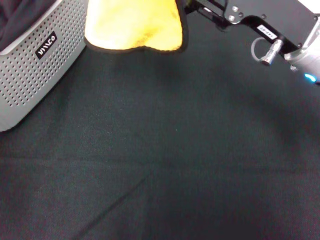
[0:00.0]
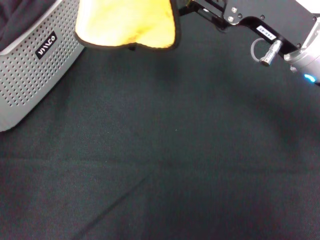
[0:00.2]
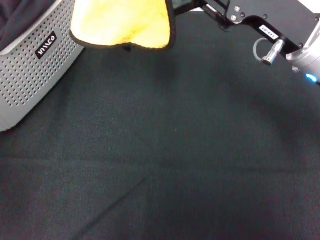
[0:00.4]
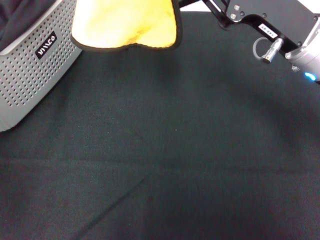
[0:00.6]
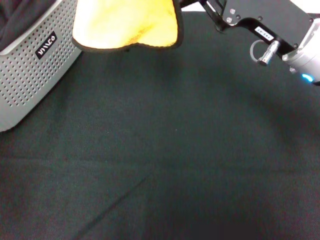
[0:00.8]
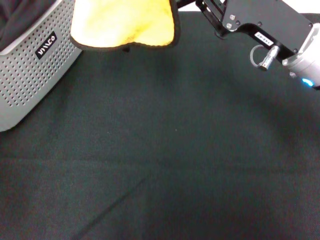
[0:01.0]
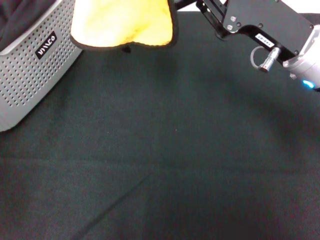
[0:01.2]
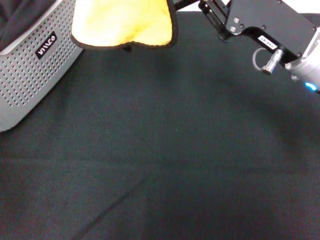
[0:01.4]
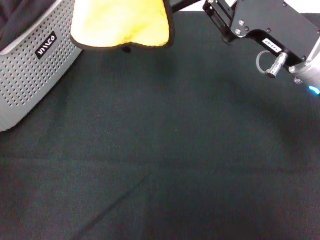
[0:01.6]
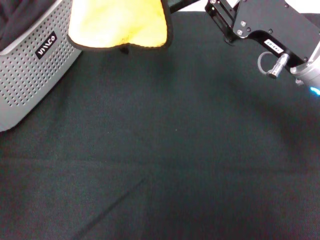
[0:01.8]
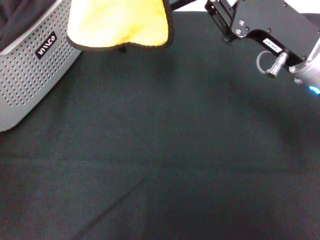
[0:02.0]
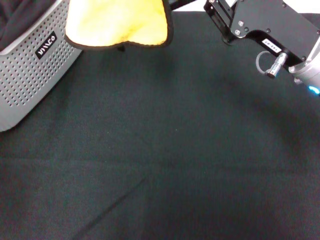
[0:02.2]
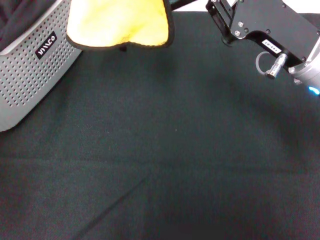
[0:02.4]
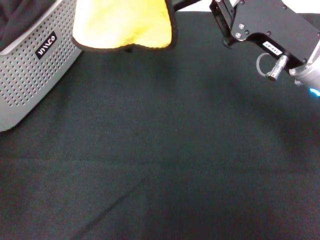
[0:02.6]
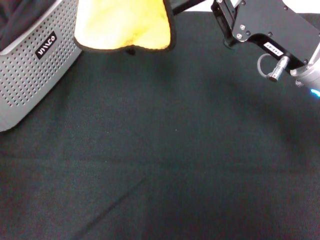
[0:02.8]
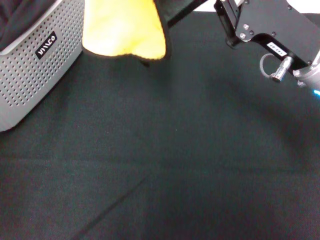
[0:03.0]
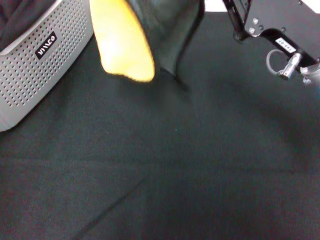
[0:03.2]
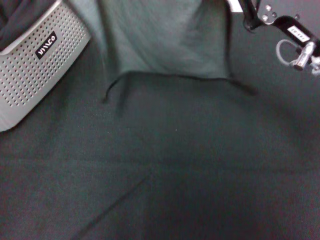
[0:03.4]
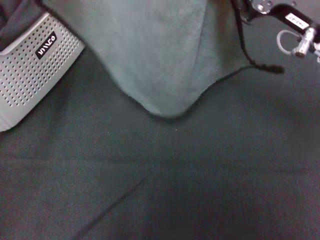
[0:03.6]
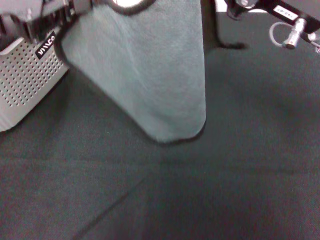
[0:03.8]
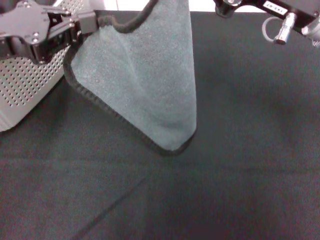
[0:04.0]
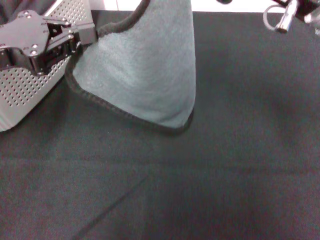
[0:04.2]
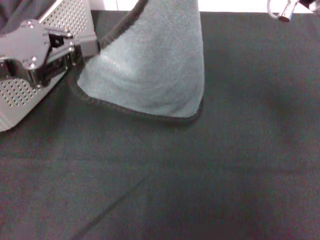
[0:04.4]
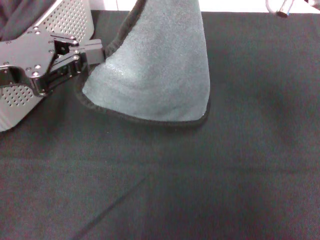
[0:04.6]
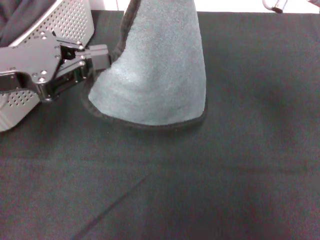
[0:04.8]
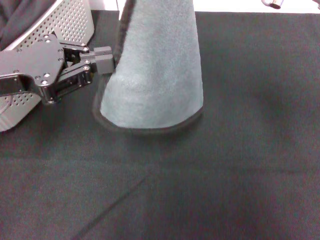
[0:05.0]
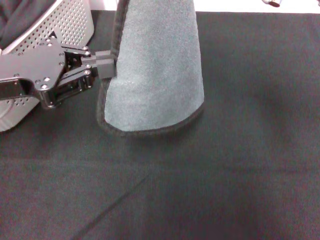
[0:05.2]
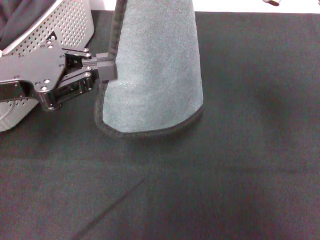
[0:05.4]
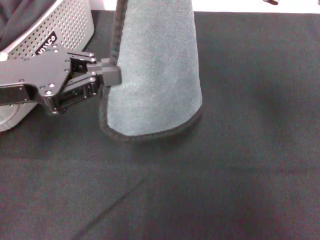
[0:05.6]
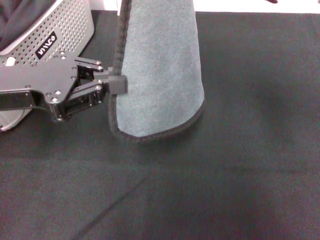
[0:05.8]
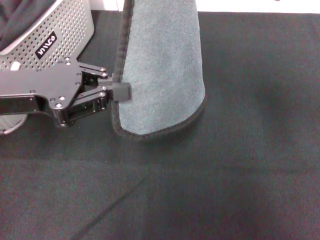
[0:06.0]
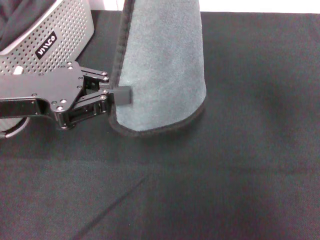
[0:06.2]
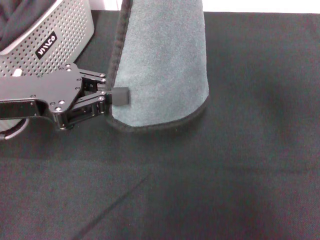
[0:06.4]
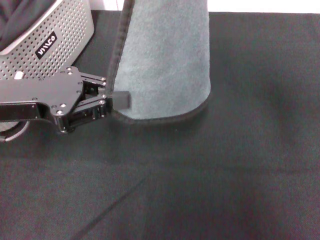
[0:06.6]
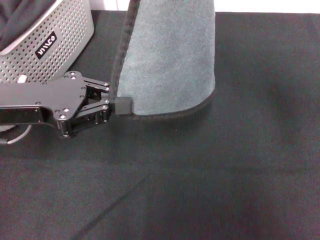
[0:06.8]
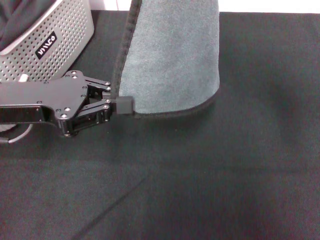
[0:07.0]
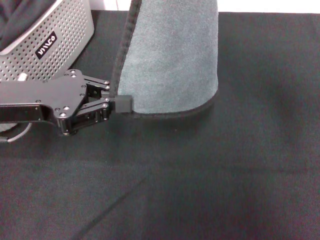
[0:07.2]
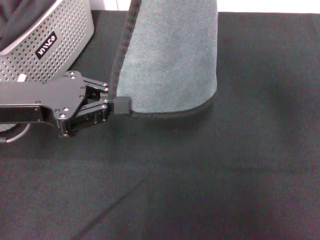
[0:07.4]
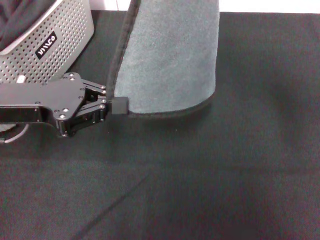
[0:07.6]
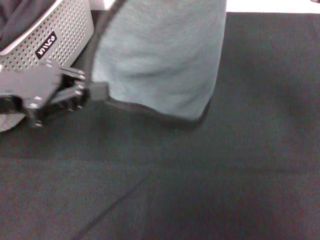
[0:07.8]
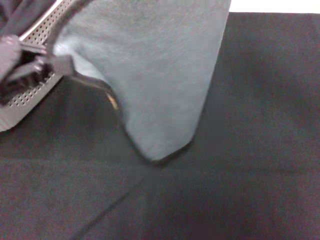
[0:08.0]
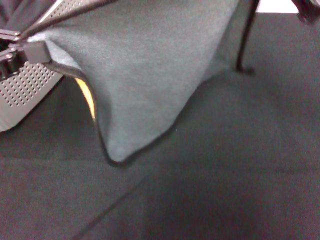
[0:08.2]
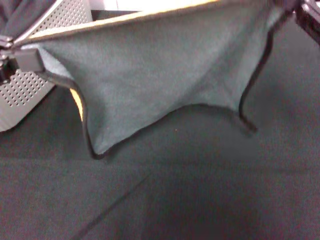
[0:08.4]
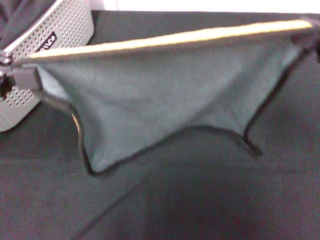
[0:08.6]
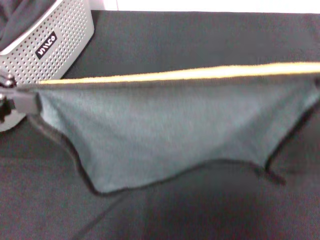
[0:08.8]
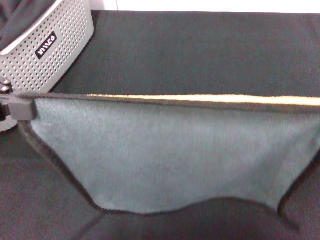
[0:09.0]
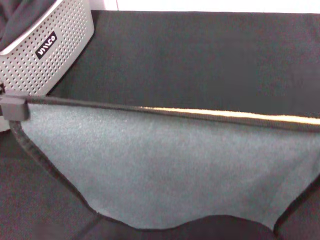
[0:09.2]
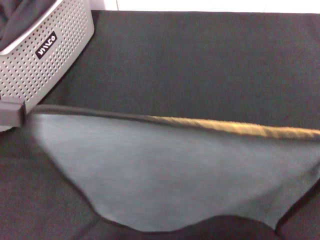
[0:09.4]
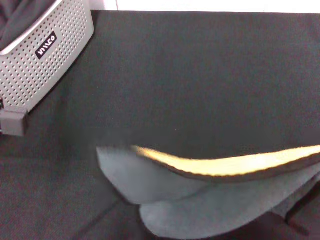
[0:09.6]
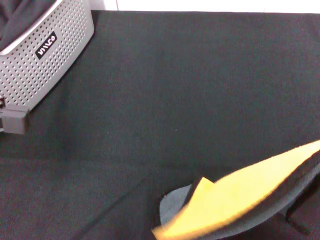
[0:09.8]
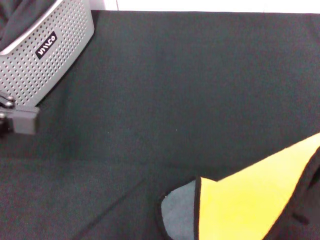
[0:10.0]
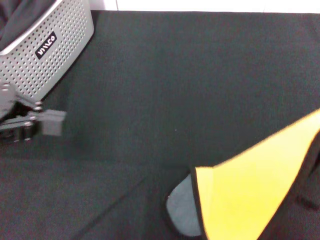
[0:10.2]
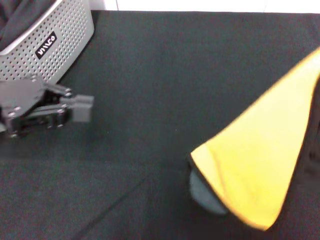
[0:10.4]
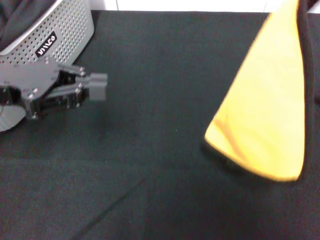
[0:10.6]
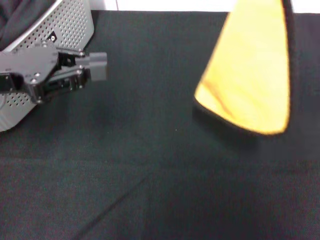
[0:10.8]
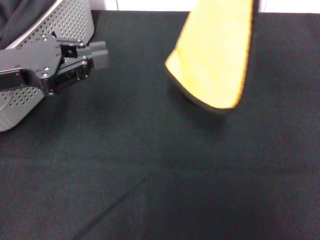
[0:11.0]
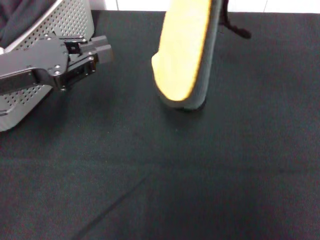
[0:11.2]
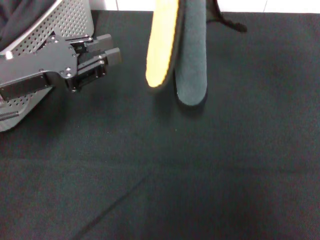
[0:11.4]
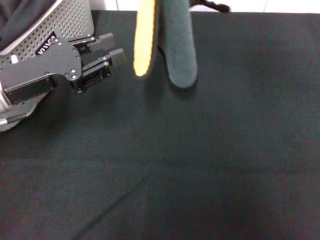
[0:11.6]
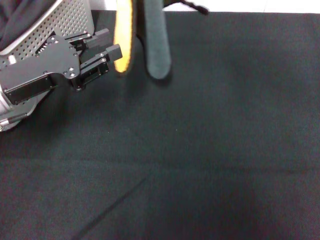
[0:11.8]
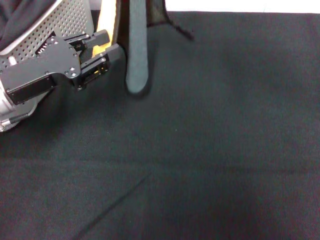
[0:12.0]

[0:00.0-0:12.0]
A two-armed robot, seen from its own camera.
Task of the whole recording: pick up the towel from the storage box and lay it flat on the black tablecloth.
0:00.0 to 0:01.6: The right gripper closes up.
0:01.6 to 0:03.0: Both grippers stay put.
0:03.0 to 0:04.4: The right gripper is displaced upward by some 10 cm. The left gripper heads downward, covering about 20 cm.
0:06.0 to 0:07.6: The grippers stay close to where they were, moving slightly.
0:07.6 to 0:09.0: The left gripper heads upward and to the left, covering about 10 cm, while the right gripper goes approximately 20 cm to the right, backward and downward.
0:09.0 to 0:10.4: The left gripper ends up some 5 cm from where it was.
0:10.4 to 0:12.0: The right gripper is displaced to the left and forward by some 25 cm. Meanwhile the left gripper heads downward, covering roughly 10 cm, and opens its fingers.

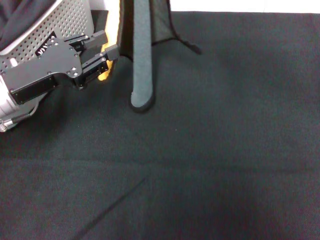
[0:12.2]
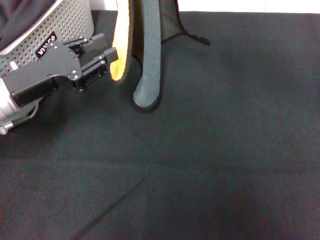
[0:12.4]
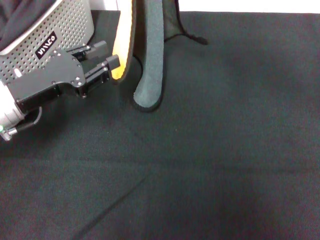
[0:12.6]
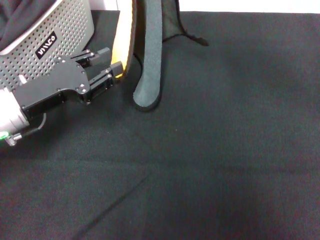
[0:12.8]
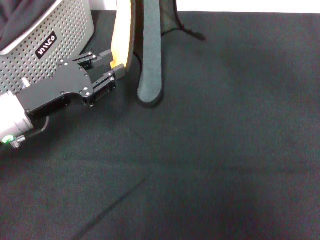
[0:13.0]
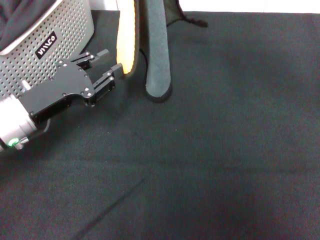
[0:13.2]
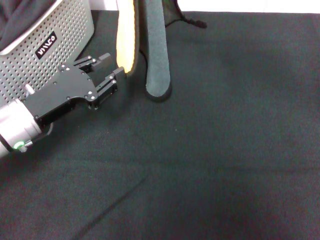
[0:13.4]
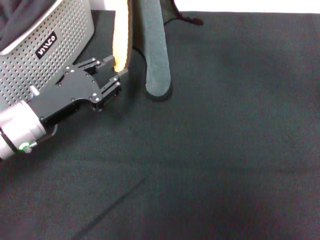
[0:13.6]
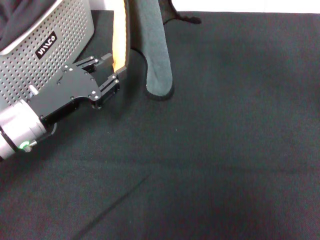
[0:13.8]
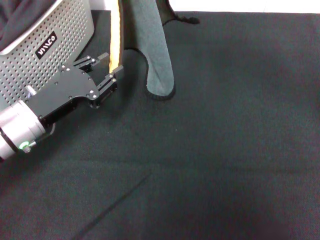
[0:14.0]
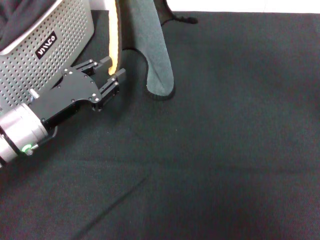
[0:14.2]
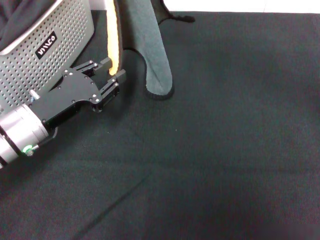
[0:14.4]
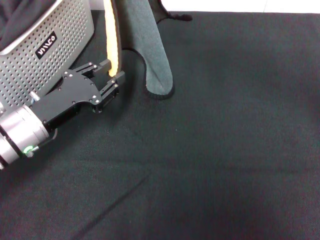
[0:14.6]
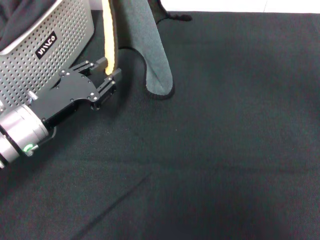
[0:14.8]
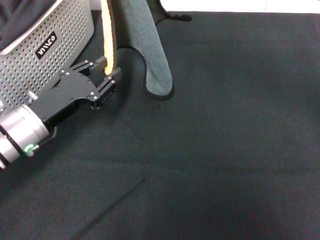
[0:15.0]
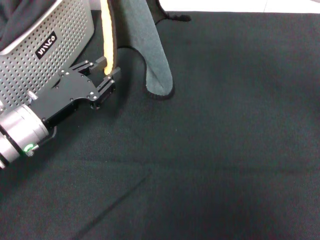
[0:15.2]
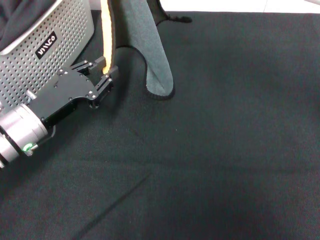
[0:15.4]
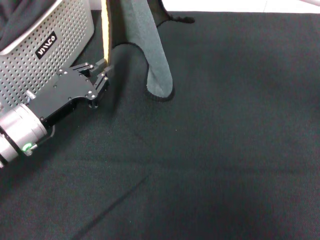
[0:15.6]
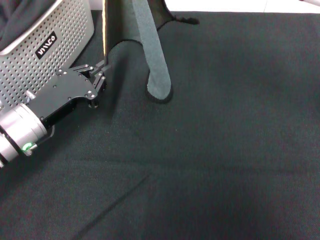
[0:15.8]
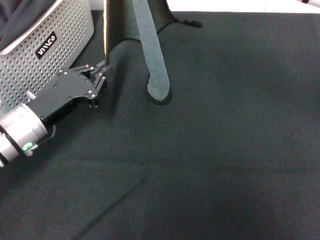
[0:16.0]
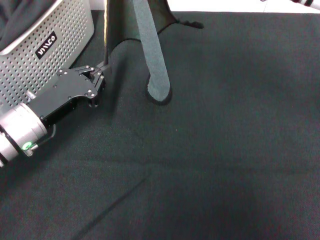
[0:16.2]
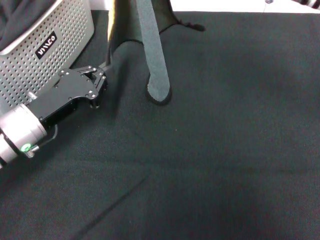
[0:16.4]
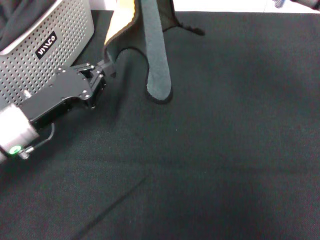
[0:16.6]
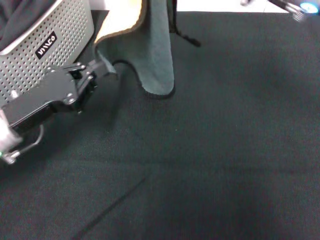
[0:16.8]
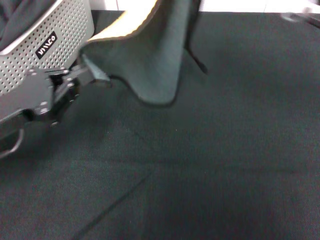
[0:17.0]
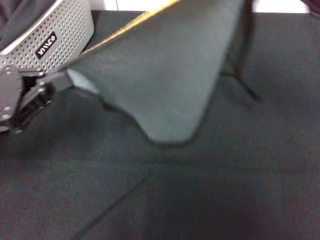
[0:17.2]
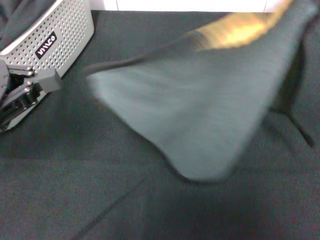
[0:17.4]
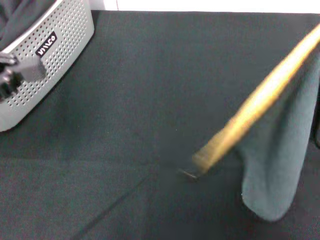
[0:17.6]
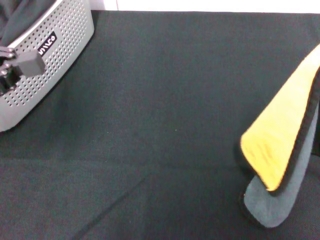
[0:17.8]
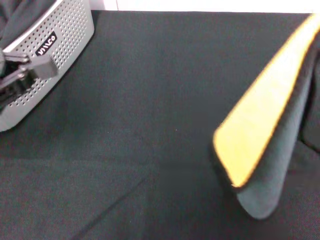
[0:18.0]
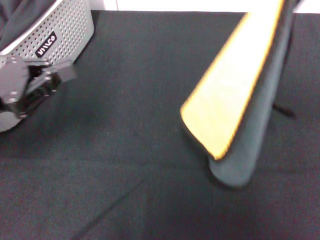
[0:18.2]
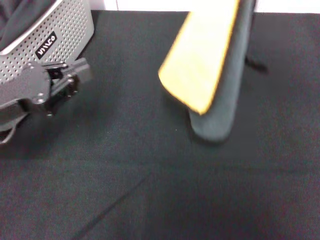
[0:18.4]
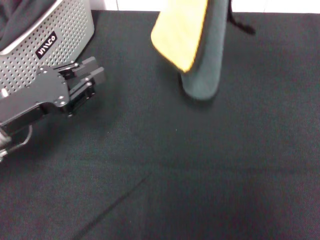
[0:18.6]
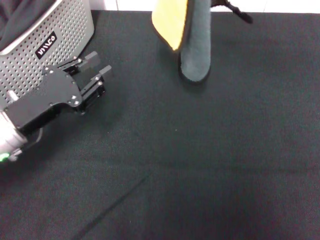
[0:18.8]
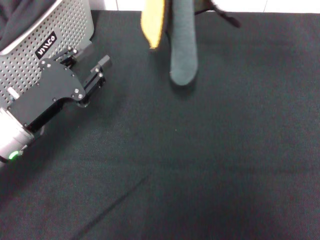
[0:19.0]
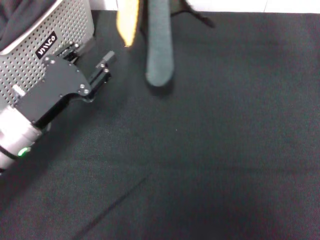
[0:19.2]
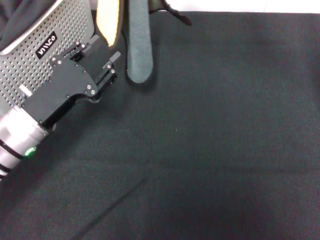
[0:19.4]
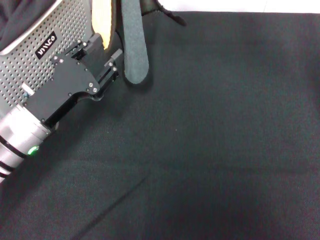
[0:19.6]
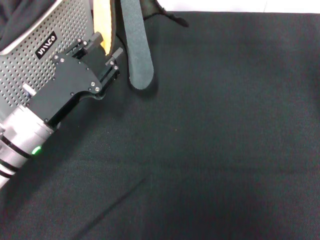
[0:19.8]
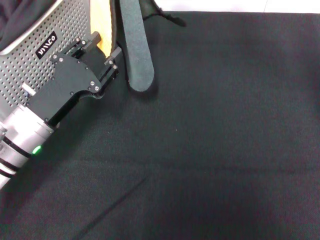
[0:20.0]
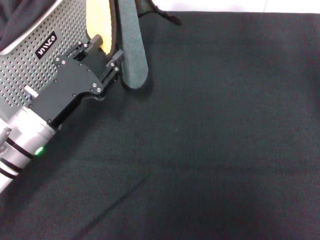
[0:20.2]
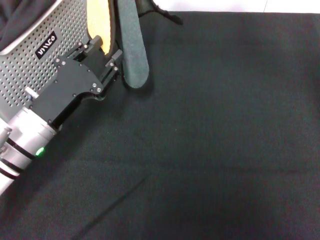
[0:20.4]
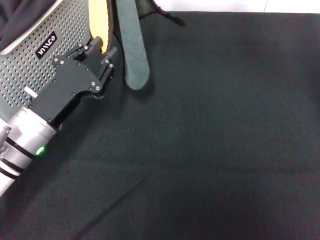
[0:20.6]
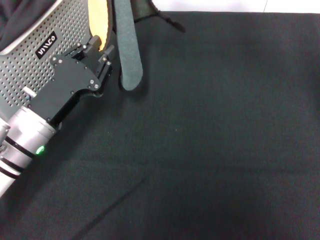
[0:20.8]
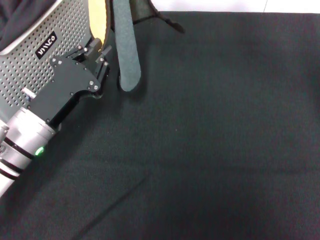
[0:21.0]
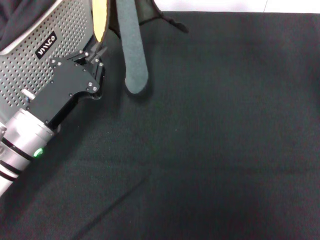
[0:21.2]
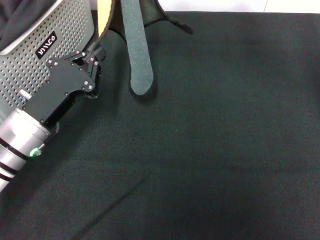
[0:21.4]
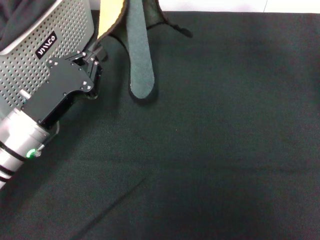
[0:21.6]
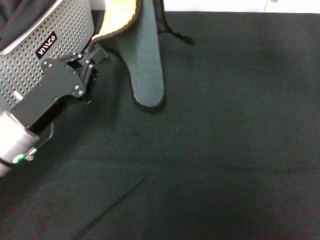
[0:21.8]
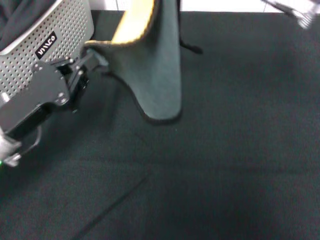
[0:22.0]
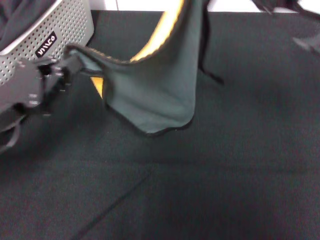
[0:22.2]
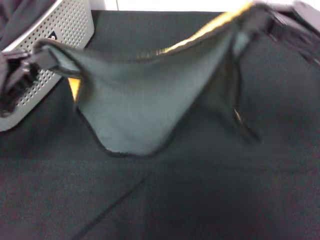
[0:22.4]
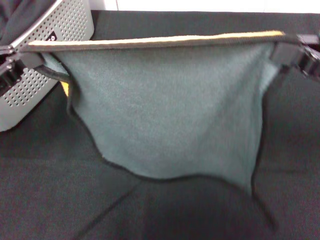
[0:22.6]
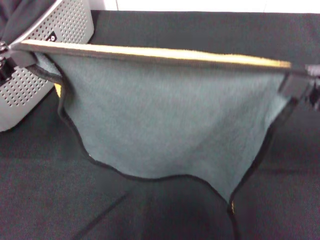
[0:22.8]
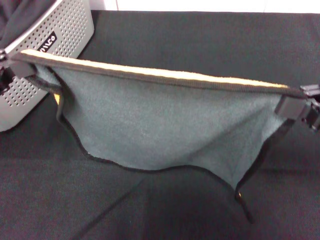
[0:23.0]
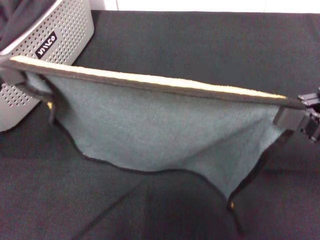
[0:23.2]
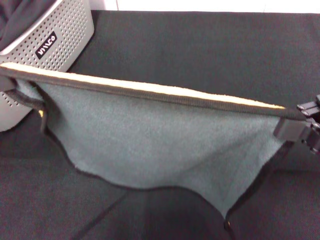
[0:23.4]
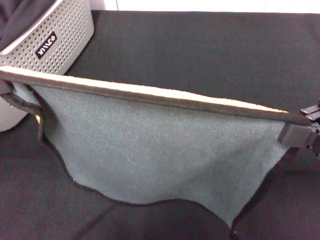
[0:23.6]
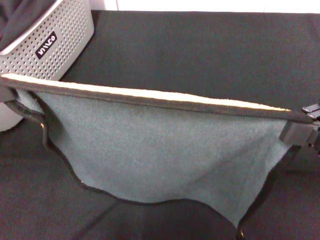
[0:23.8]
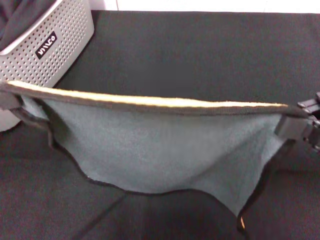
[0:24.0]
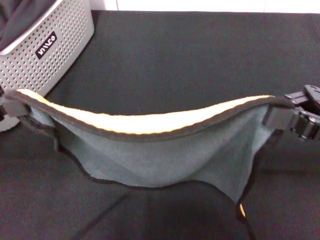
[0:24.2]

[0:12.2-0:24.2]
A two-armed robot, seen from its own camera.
Task of the whole recording: pick up the towel from the storage box and lay it flat on the black tablecloth.
0:12.2 to 0:13.8: The left gripper heads downward, covering roughly 5 cm.
0:13.8 to 0:15.2: The grippers move only a little.
0:15.2 to 0:16.6: The left gripper closes up.
0:16.6 to 0:18.2: The right gripper shifts about 15 cm to the right and backward. Meanwhile the left gripper shifts roughly 10 cm upward and to the left.
0:18.2 to 0:19.8: The left gripper moves to the right and downward, some 10 cm, and opens. The right gripper travels to the left and forward by roughly 20 cm.
0:19.8 to 0:21.2: The left gripper closes.
0:21.2 to 0:22.6: The right gripper heads to the right, backward and downward, covering roughly 25 cm. Meanwhile the left gripper shifts some 15 cm upward and to the left, and closes.
